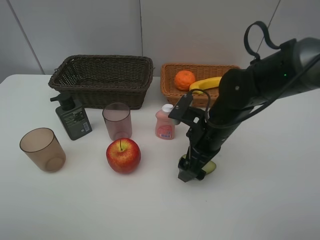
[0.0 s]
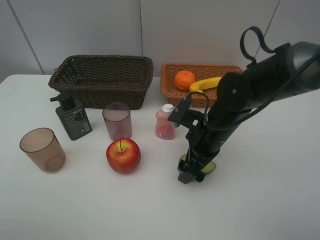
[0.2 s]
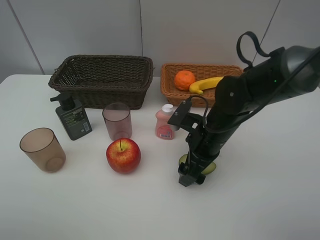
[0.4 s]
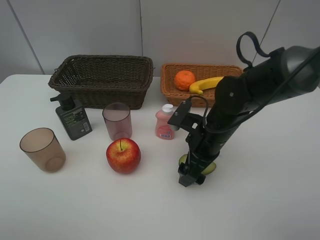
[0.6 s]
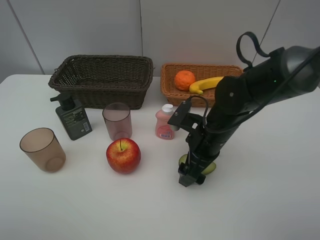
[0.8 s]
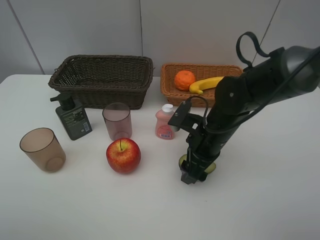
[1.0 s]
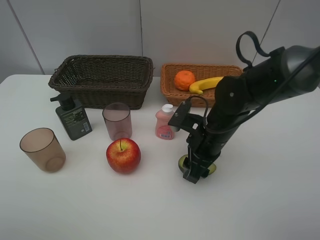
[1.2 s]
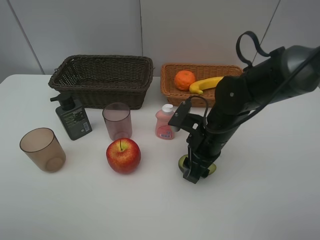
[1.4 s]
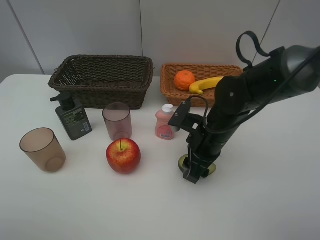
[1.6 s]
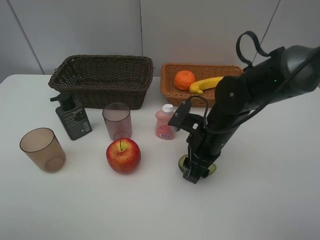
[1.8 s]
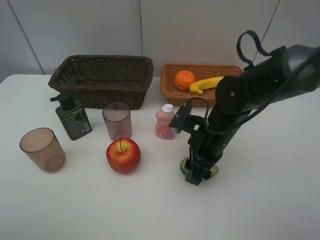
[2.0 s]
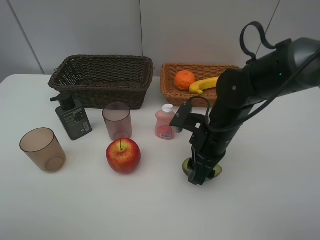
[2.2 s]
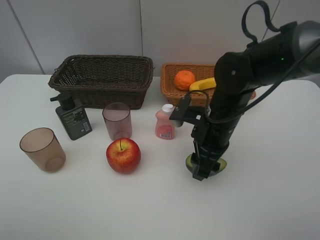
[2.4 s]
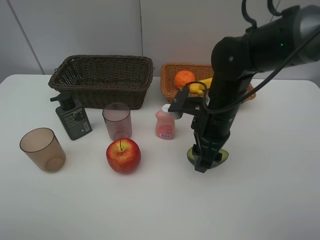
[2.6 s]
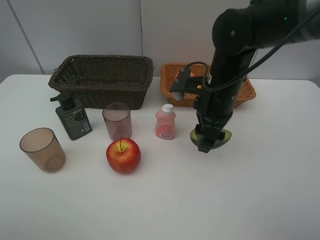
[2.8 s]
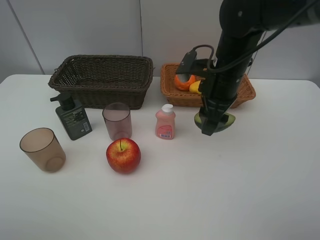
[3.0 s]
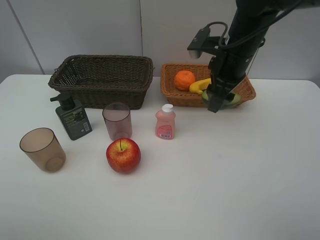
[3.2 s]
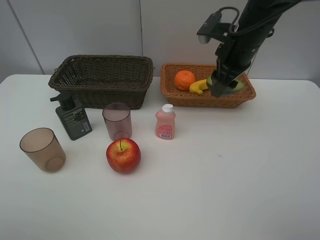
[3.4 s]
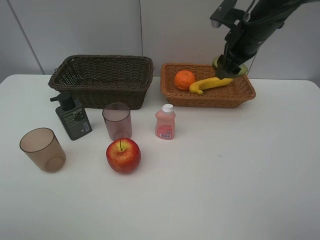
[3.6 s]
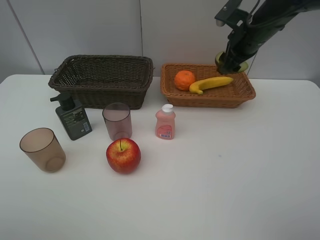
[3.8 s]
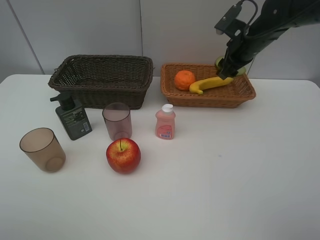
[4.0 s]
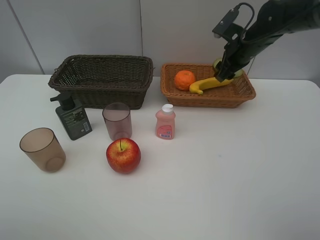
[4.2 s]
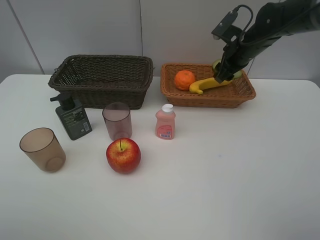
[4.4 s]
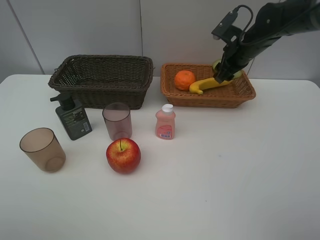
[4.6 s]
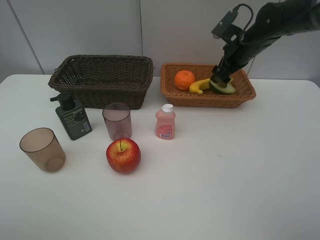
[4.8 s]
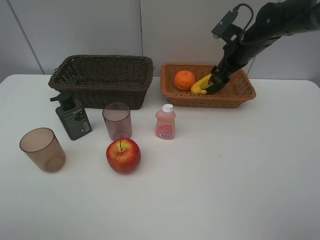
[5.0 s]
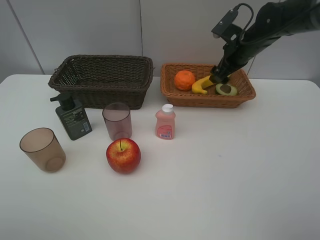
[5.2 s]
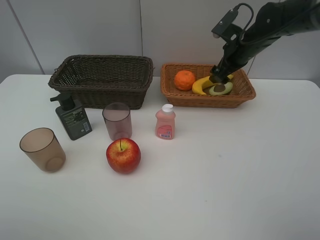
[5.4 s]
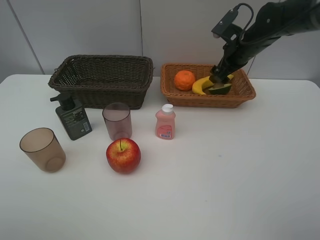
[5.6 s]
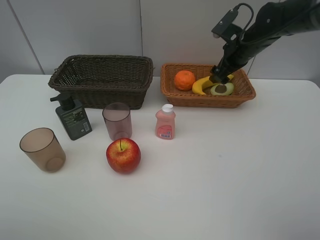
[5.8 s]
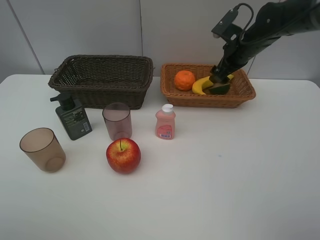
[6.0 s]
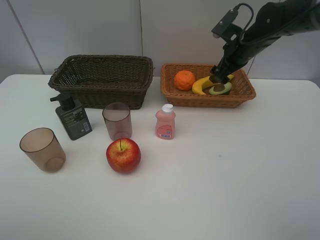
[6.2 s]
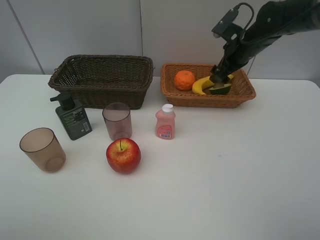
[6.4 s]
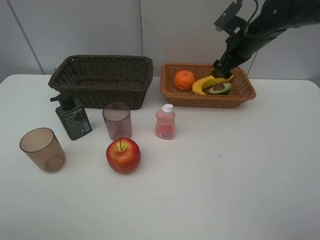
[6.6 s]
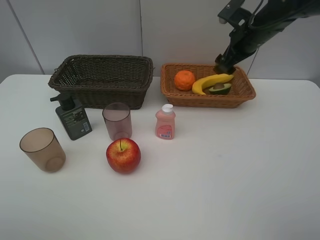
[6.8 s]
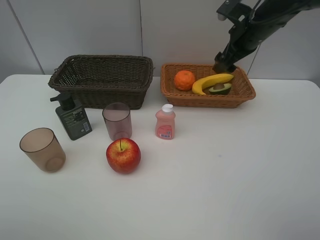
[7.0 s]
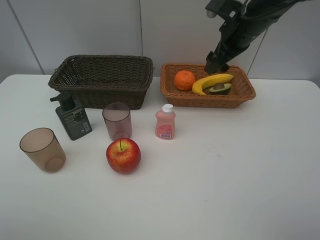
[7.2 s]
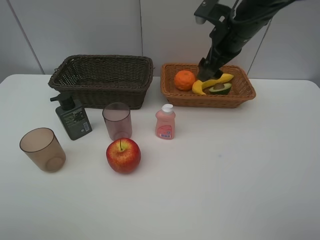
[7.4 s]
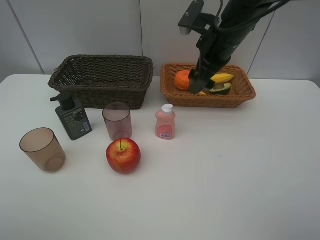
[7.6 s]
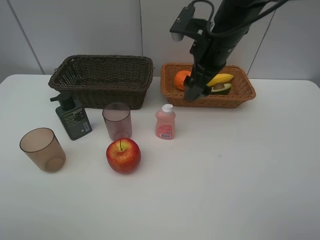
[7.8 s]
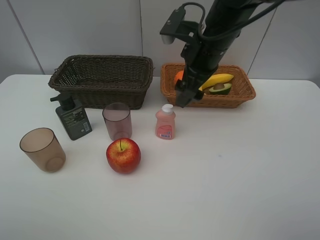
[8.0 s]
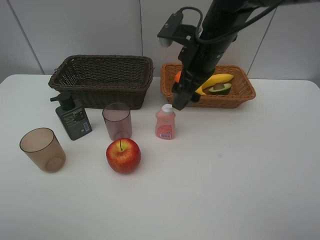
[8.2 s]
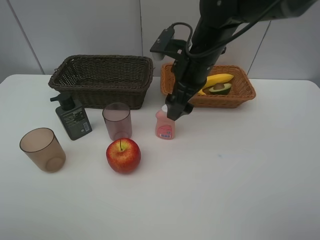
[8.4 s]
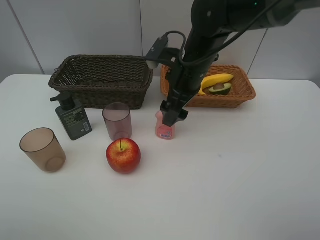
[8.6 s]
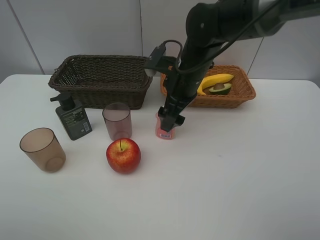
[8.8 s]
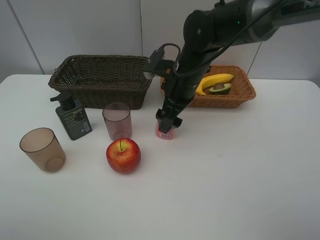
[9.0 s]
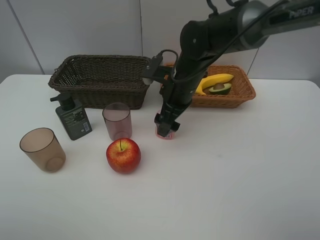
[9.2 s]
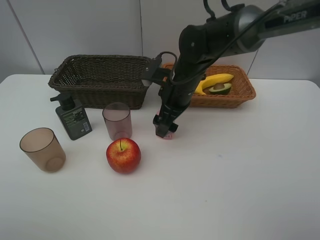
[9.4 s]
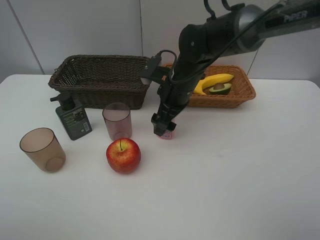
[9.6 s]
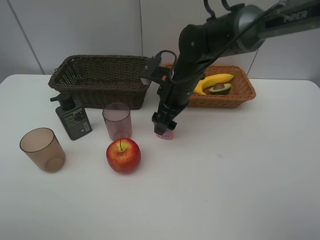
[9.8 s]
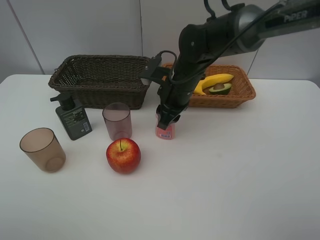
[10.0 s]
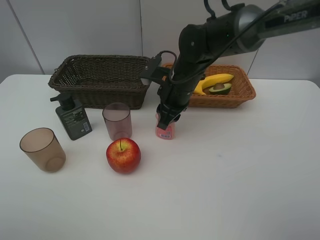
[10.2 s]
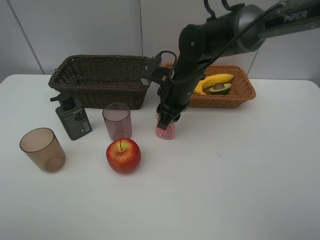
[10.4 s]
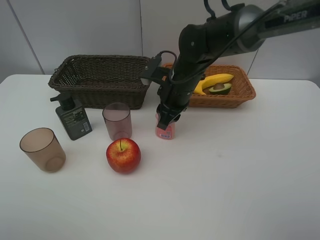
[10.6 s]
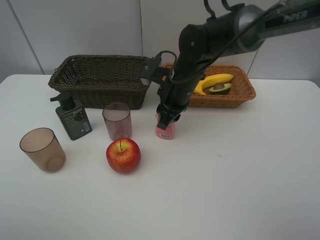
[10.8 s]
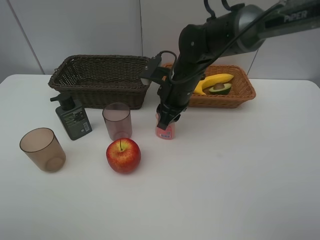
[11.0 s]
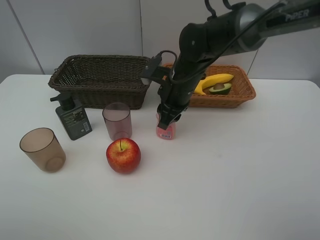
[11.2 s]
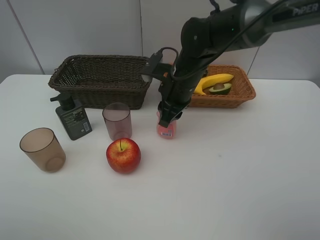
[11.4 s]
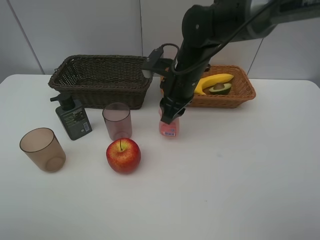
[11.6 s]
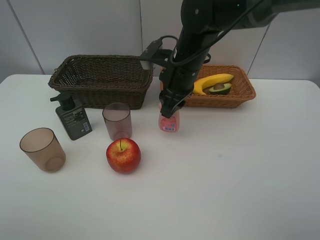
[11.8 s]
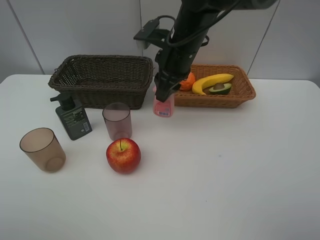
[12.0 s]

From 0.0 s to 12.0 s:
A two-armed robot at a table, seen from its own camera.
Task of the whole recording: Place multiple objects separately in different baskets.
Step, from 0.0 s to 2.2 s: Pick up the avocado with right gripper.
Step, from 2.4 s to 5.0 s: Place the avocado in the light basket with right gripper.
Step, from 5.2 s to 11.6 s: Pick up the laundry detergent with right gripper.
From 0.0 s to 1.6 s: The right gripper closes up.
From 1.6 s to 3.0 s: The right gripper travels upward and forward by roughly 10 cm.
From 3.0 s to 4.4 s: The right gripper travels forward and to the right by approximately 15 cm.
From 4.4 s to 6.0 s: The right gripper opens up.
From 6.0 s to 7.6 s: The right gripper goes some 15 cm to the left, backward and upward.
From 7.6 s to 9.0 s: The right gripper goes some 10 cm downward and to the left.
From 9.0 s to 10.4 s: The right gripper closes its fingers.
From 10.4 s to 12.0 s: The right gripper is displaced upward by some 10 cm.

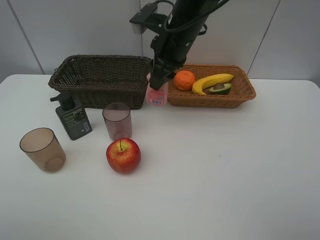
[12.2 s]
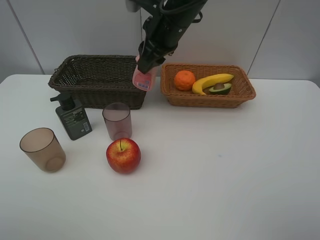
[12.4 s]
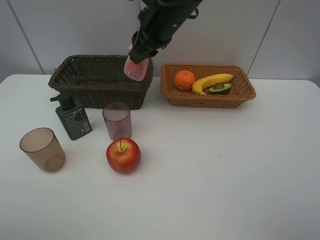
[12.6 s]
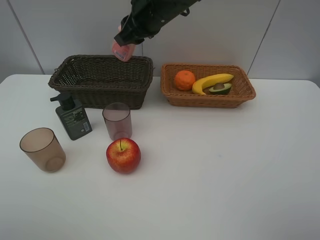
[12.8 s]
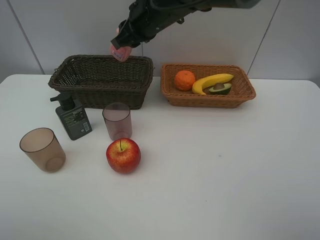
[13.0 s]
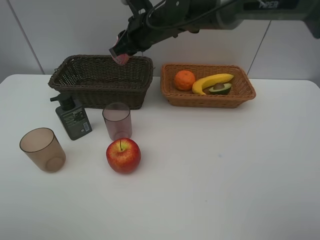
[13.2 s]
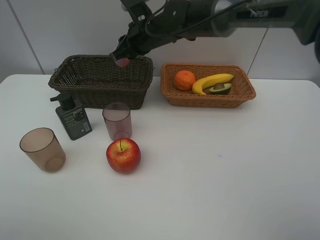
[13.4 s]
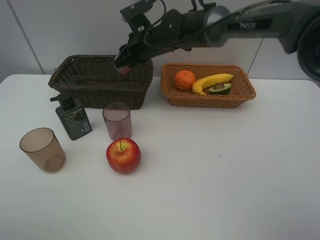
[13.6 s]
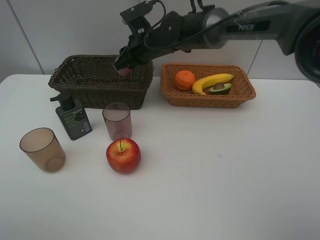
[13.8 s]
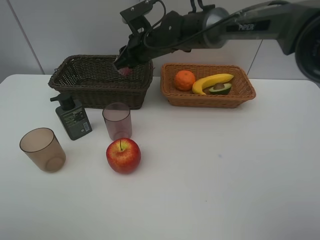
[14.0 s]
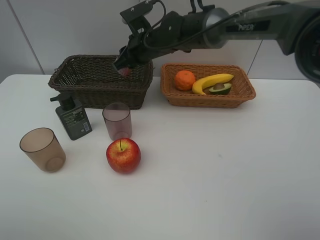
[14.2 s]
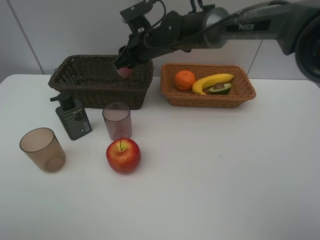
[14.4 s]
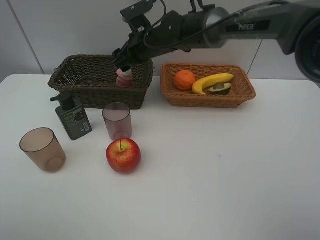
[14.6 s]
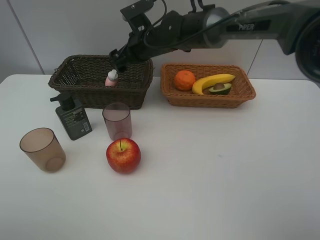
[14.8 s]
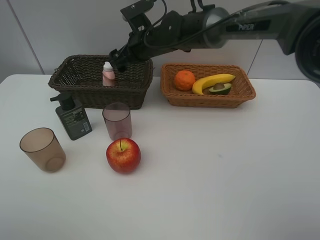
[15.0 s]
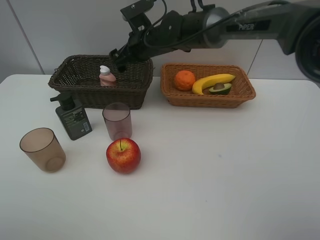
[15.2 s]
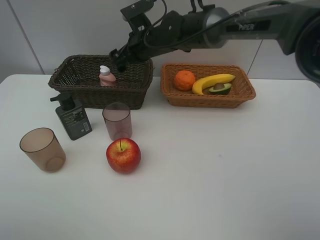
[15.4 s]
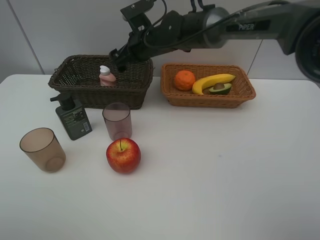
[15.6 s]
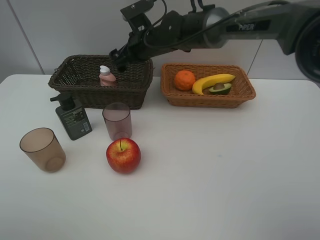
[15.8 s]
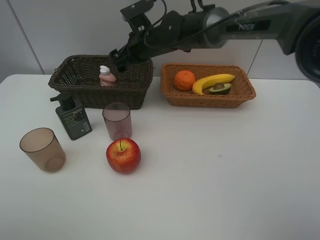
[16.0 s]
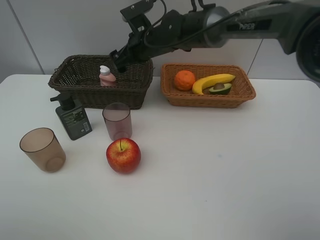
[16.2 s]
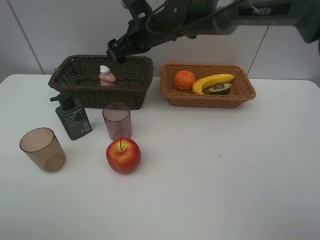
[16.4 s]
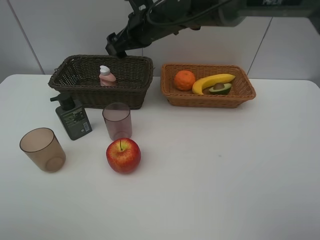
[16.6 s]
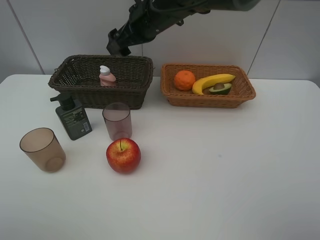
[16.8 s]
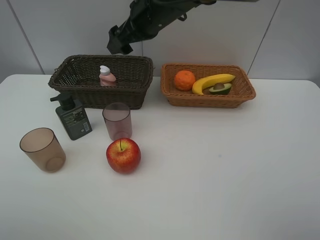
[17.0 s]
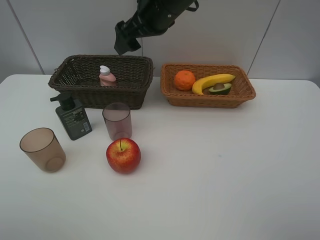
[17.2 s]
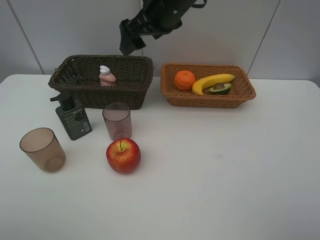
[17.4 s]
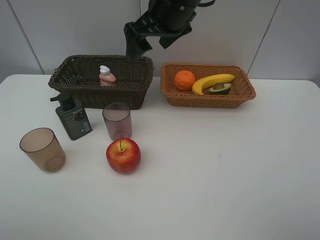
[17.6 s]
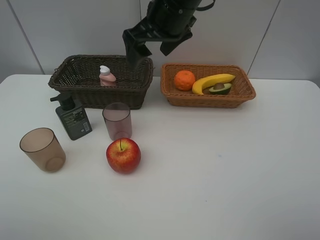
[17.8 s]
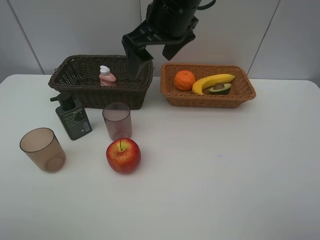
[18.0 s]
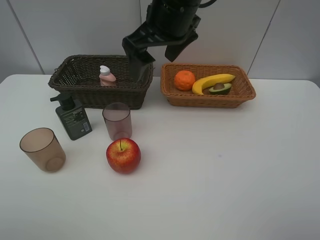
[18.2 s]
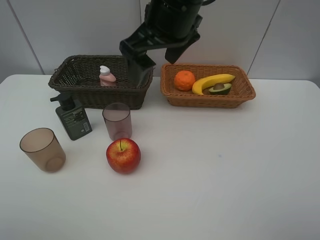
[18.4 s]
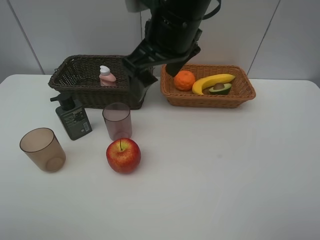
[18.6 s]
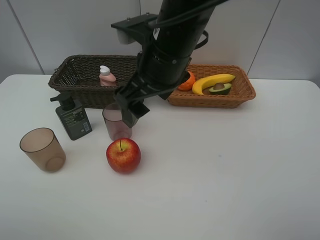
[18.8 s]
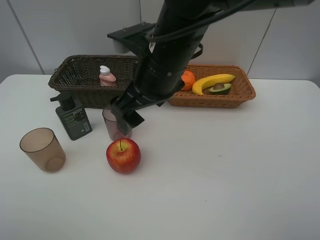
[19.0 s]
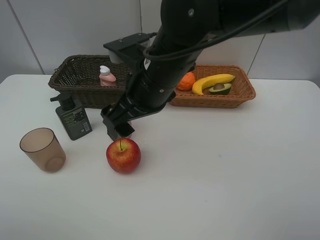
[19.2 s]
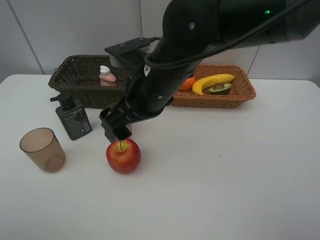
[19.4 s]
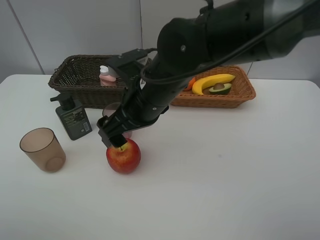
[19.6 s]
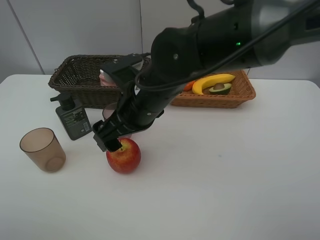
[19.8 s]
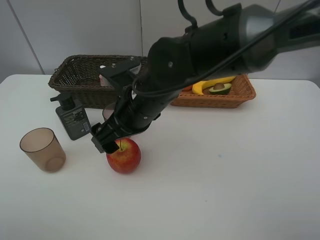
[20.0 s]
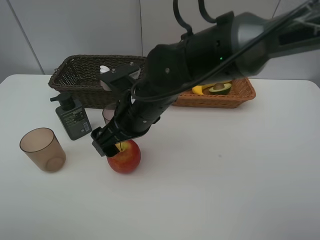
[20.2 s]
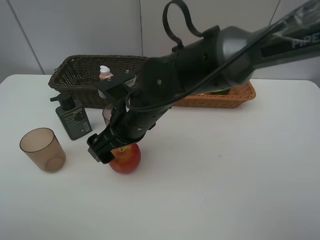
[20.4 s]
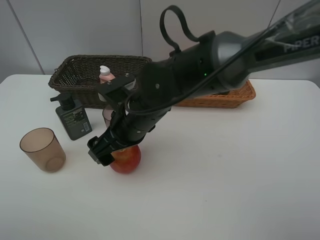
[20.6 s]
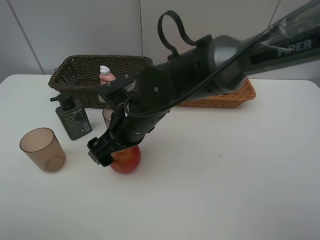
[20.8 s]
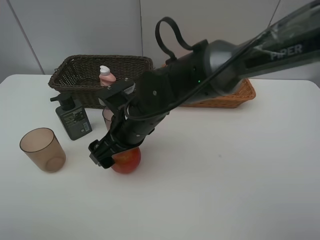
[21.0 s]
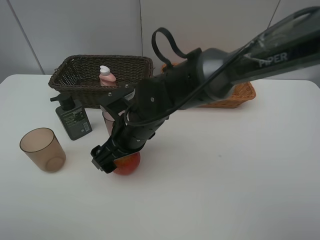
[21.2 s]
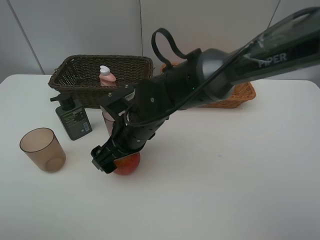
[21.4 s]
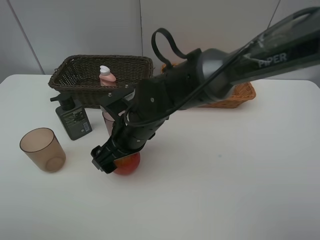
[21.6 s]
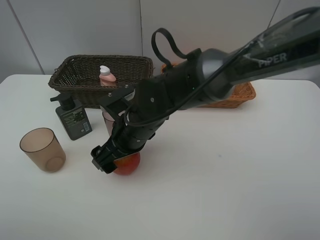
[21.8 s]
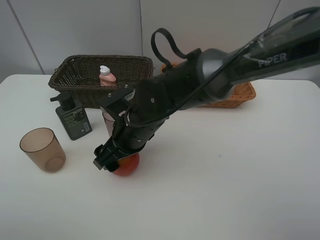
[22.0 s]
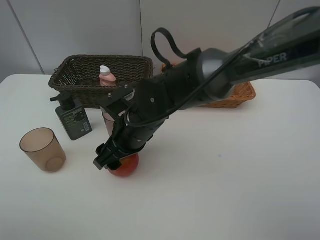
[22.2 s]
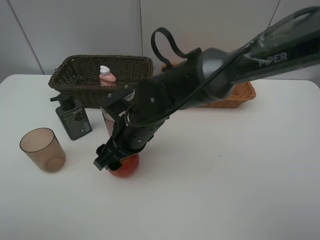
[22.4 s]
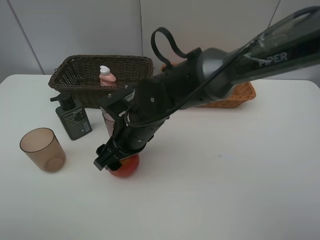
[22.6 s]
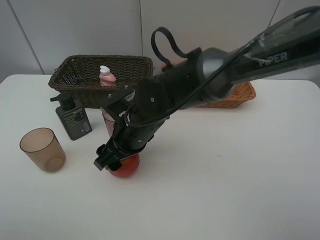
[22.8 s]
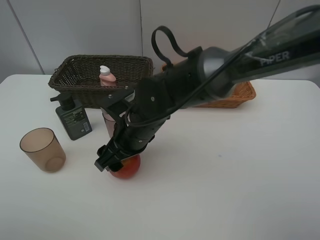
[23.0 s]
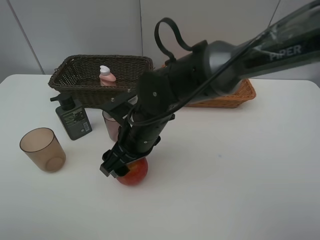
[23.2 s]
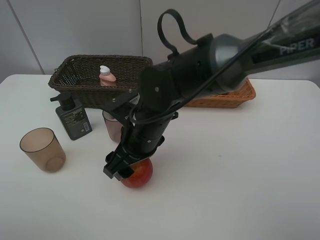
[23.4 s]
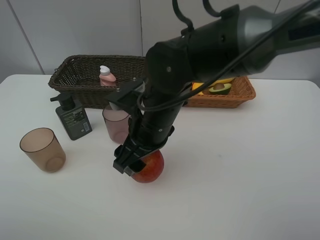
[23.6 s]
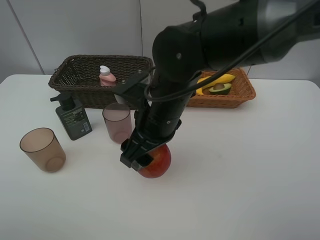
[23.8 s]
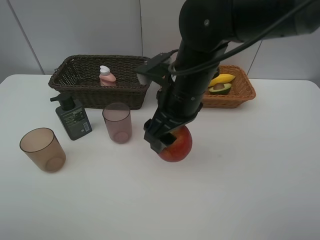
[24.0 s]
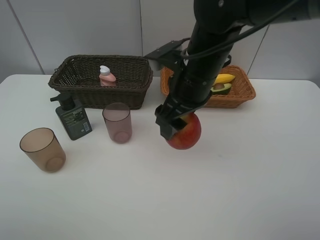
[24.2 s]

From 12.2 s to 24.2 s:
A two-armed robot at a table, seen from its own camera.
Task of the whole recording: Place multiple objects separately in different baskets.
Step, from 12.2 s to 14.8 s: Place the laundry detergent in the dark basket with right gripper.
Step, from 15.0 s to 23.6 s: Pick up the apple with right gripper.
From 12.2 s to 13.8 s: The right gripper goes about 10 cm forward, downward and to the left.
From 13.8 s to 15.2 s: The right gripper opens.
From 15.2 s to 16.6 s: The right gripper shifts by some 5 cm.
From 16.6 s to 18.2 s: The right gripper travels backward and upward by roughly 15 cm.
From 18.2 s to 19.8 s: The right gripper shifts some 15 cm downward and backward.
From 19.8 s to 21.2 s: The right gripper is displaced downward by about 5 cm.
From 21.2 s to 22.6 s: Both grippers stay put.
From 22.6 s to 24.2 s: The right gripper shifts approximately 15 cm upward and to the right.
